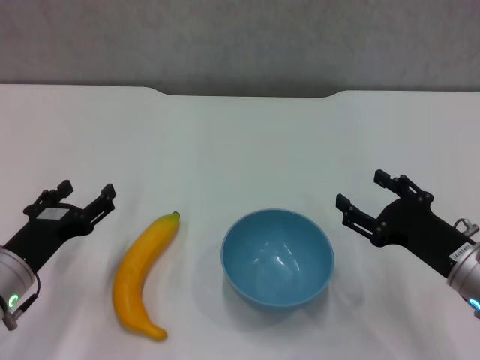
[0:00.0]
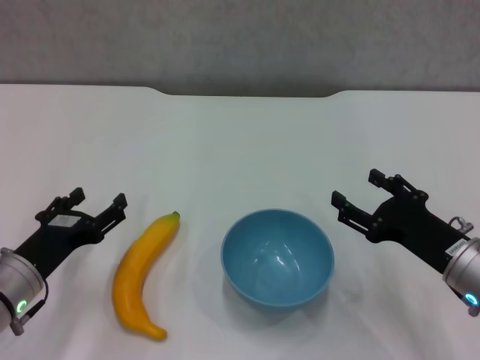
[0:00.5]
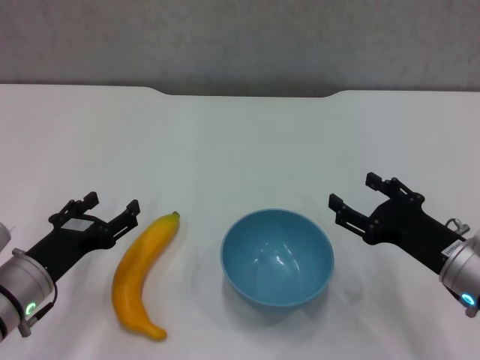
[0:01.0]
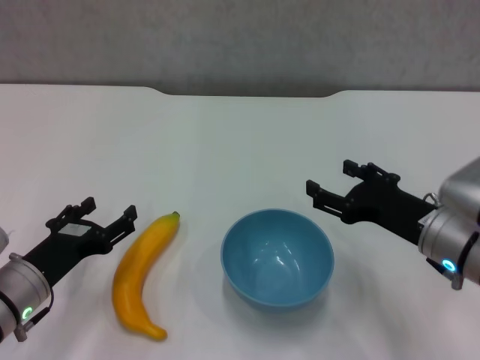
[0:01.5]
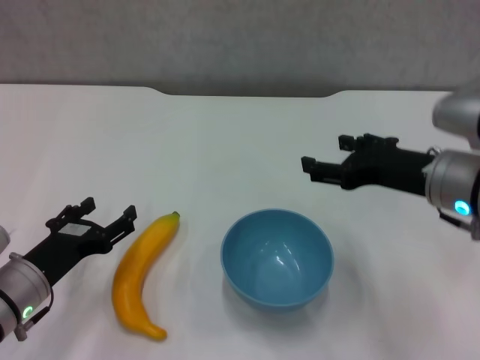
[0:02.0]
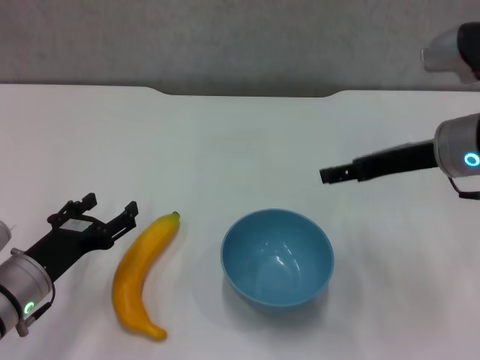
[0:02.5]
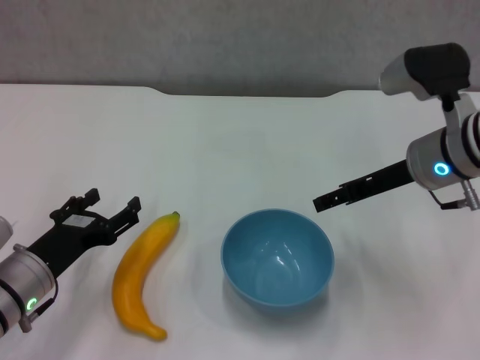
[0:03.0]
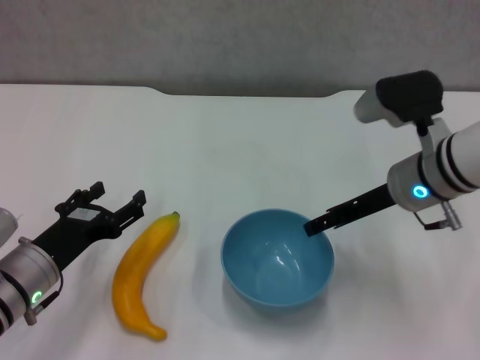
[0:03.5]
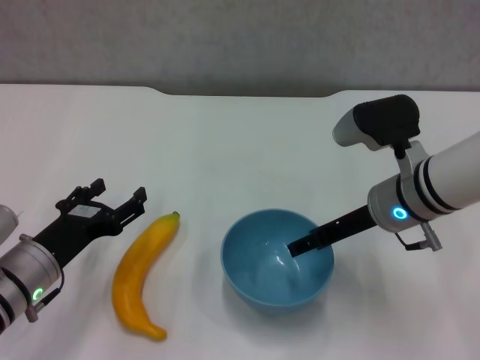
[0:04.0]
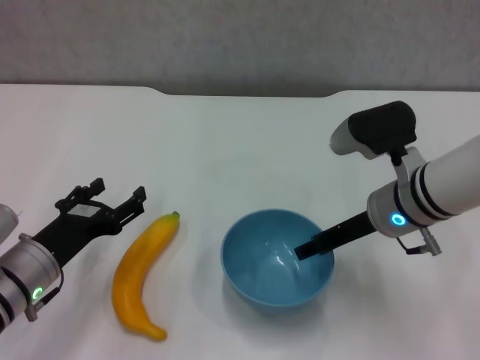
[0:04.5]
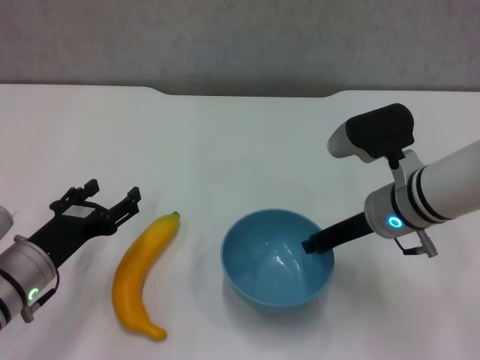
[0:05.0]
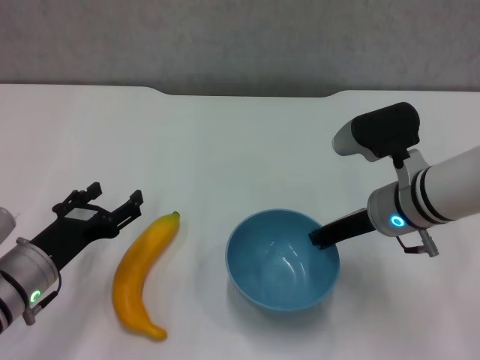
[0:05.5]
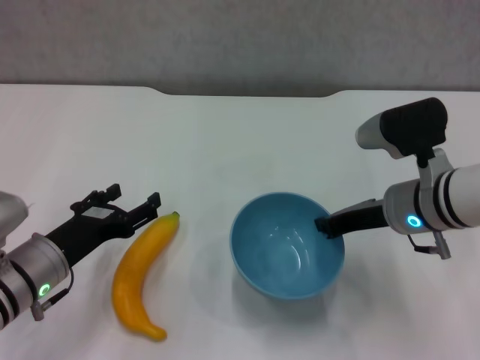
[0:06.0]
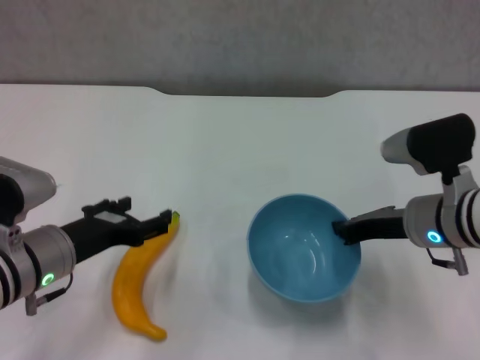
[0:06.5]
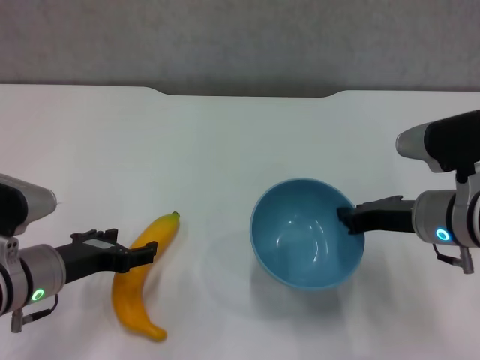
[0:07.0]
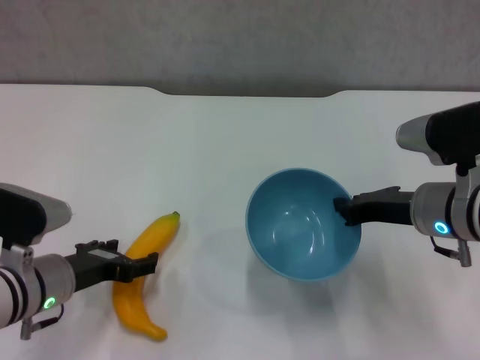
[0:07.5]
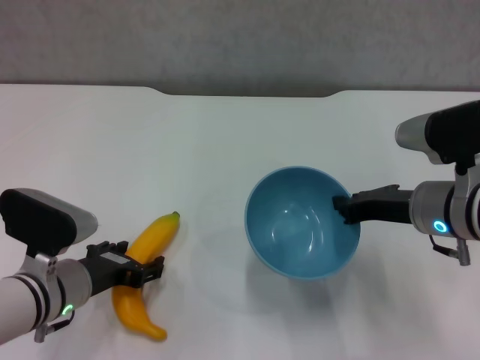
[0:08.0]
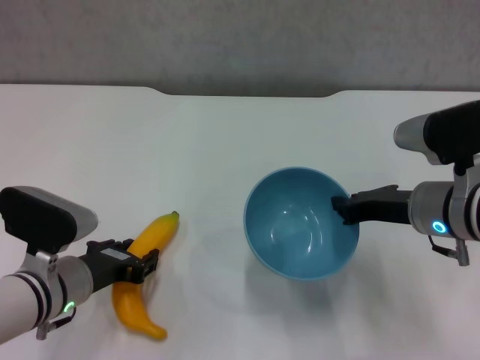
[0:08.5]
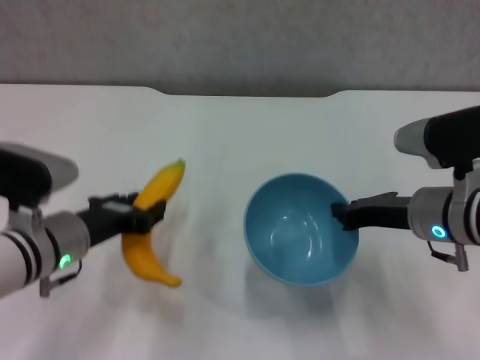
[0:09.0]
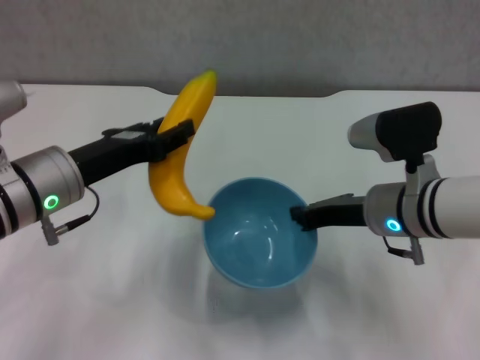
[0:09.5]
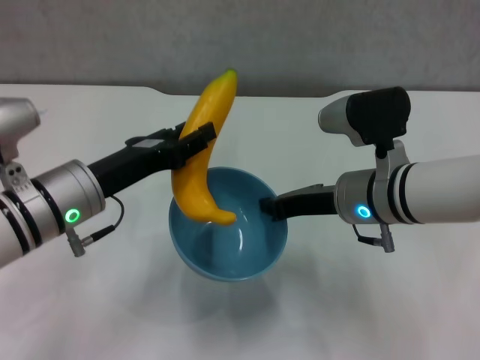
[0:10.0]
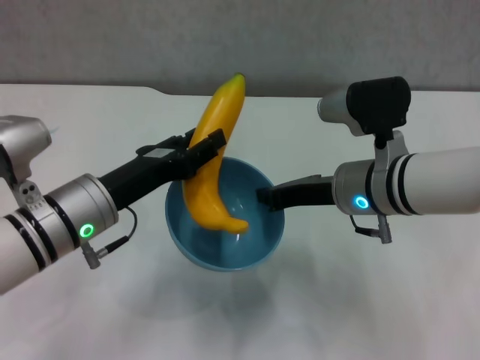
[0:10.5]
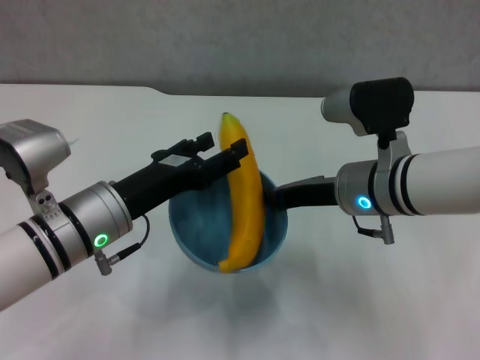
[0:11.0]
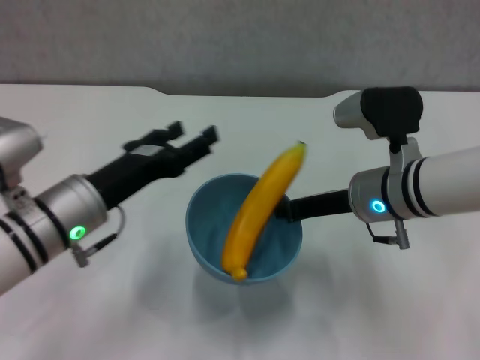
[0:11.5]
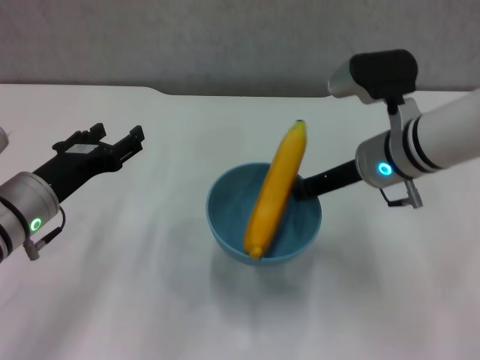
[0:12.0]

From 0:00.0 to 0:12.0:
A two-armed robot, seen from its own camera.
Step, from 0:00.0 to 0:05.0: Grasp the blue bowl with right gripper.
Step, from 0:05.5 to 0:06.5: Lift the blue bowl with right gripper.
Step, from 0:07.0 to 0:08.0: Grasp the banana with left gripper.
Step, from 0:08.5 to 0:10.5: Place the banana in the blue bowl with left gripper.
From 0:00.0 to 0:02.0: The right gripper moves upward and forward, some 10 cm.
From 0:02.0 to 0:04.0: The right gripper ends up roughly 10 cm from where it was.
From 0:04.0 to 0:06.0: The right gripper closes.
From 0:08.0 to 0:10.0: The right gripper is displaced to the left by some 5 cm; the left gripper heads upward, covering about 10 cm, and closes.
From 0:10.0 to 0:12.0: The right gripper ends up approximately 5 cm from where it was; the left gripper ends up some 5 cm from where it was, and opens its fingers.

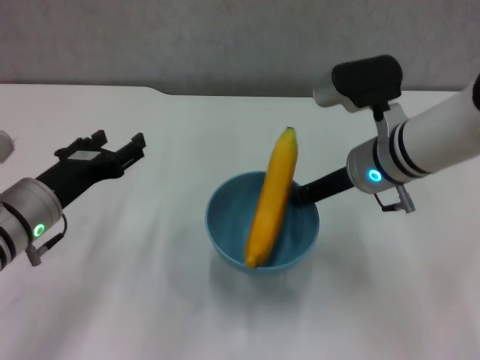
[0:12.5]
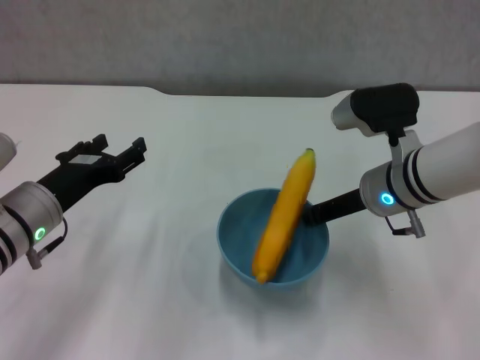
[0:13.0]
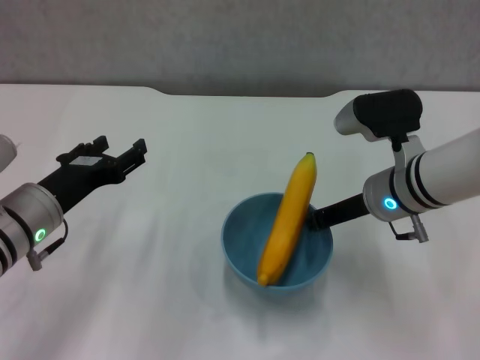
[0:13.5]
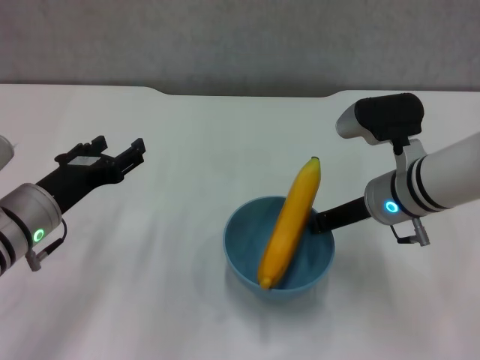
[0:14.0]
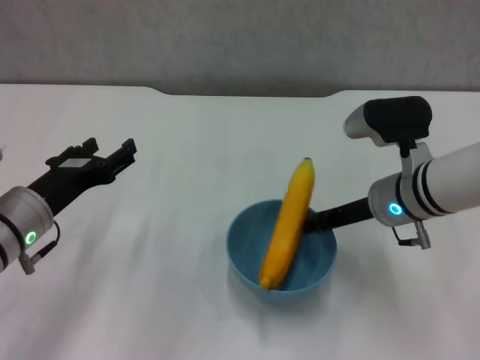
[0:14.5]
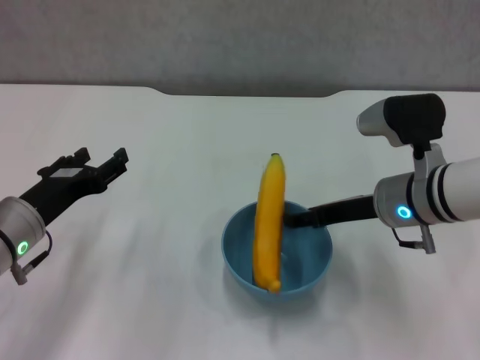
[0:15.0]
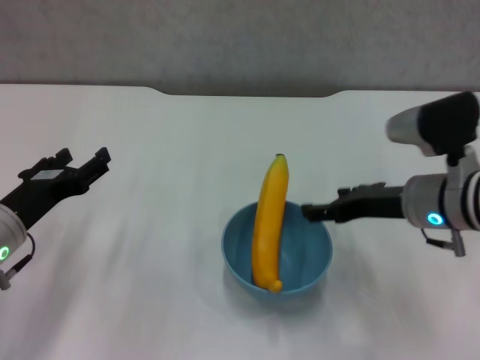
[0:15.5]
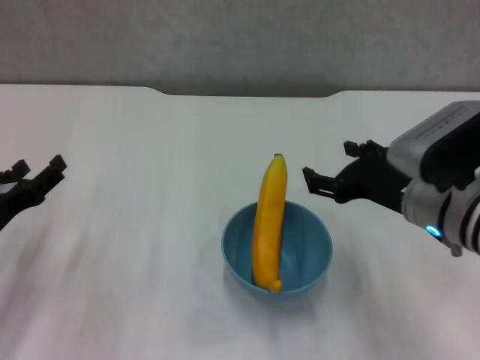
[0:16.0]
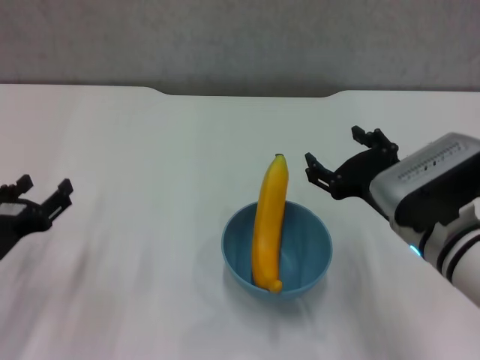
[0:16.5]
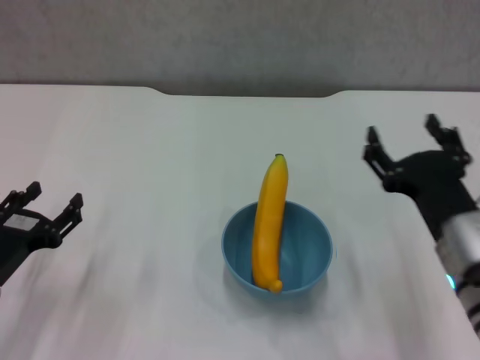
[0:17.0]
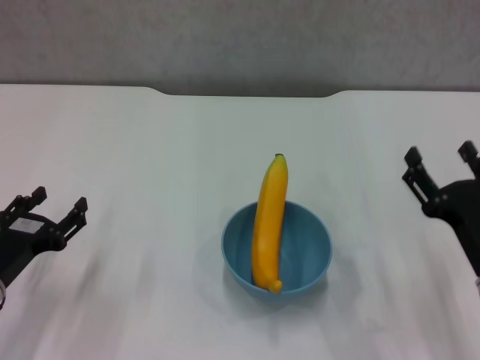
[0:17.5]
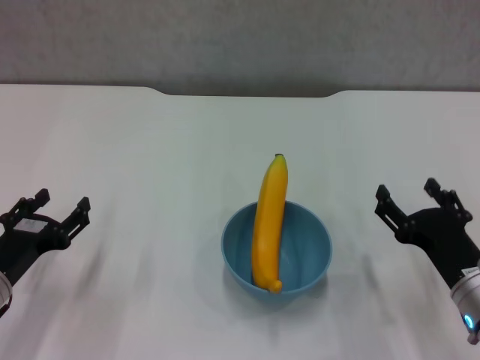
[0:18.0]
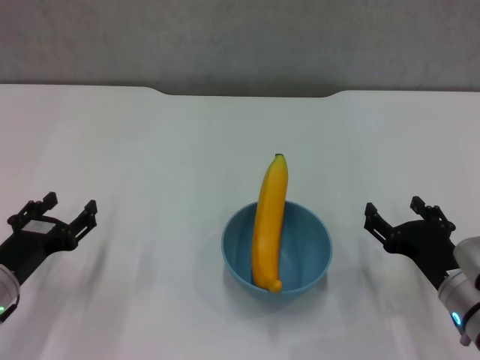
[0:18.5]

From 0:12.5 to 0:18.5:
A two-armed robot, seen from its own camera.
Step, from 0:12.5 to 0:15.0: Place the bowl on the table with right gripper.
From 0:14.5 to 0:16.5: The right gripper is displaced backward by roughly 10 cm, and opens its fingers, while the left gripper goes roughly 5 cm to the left.
From 0:16.5 to 0:18.5: The right gripper is displaced downward and to the right by approximately 10 cm.
